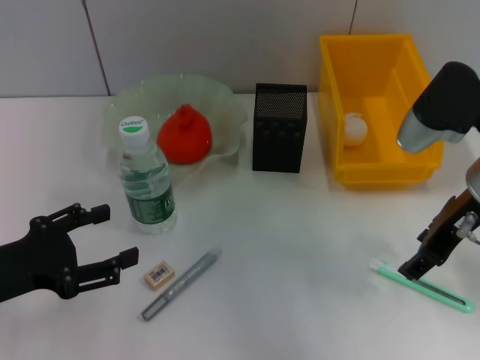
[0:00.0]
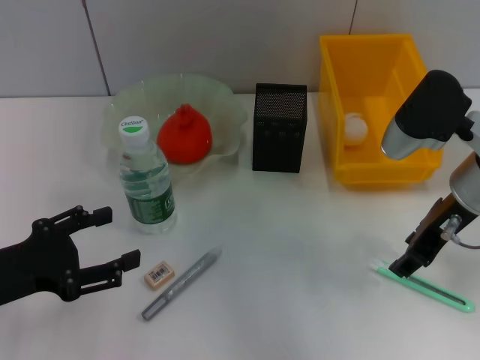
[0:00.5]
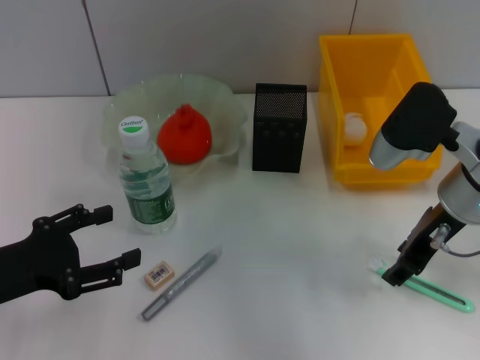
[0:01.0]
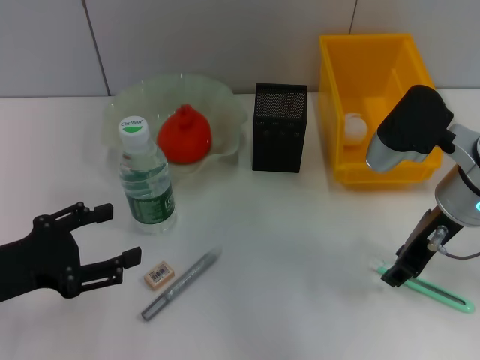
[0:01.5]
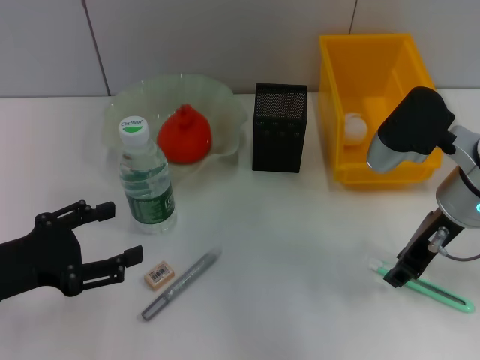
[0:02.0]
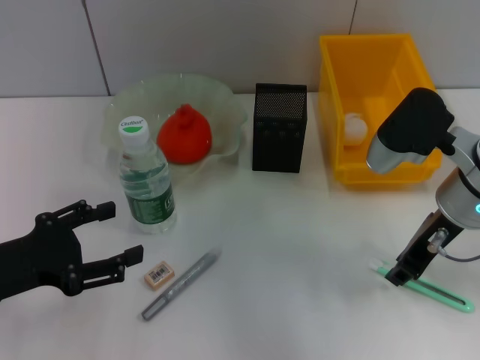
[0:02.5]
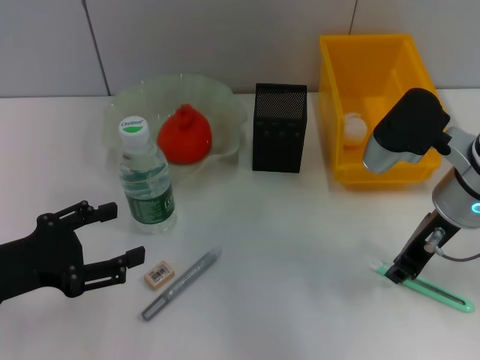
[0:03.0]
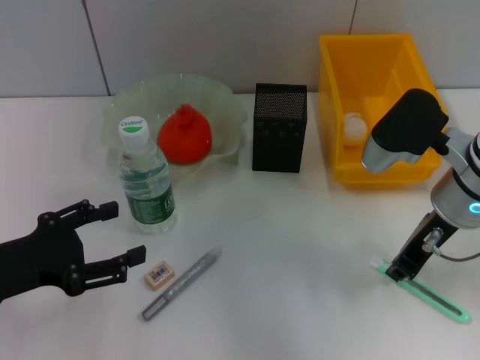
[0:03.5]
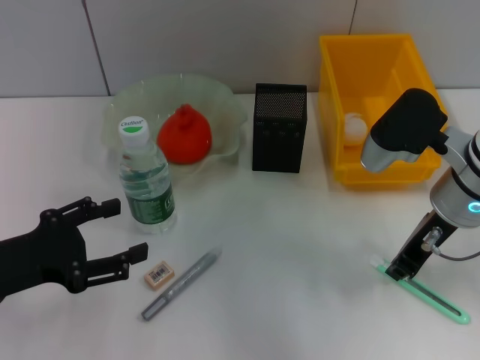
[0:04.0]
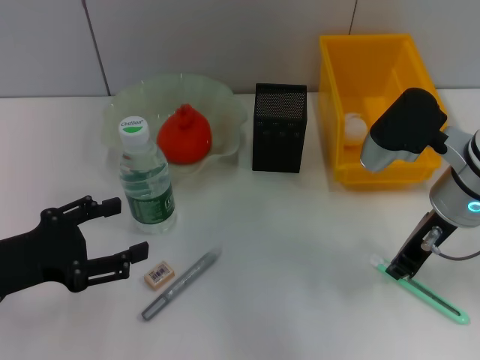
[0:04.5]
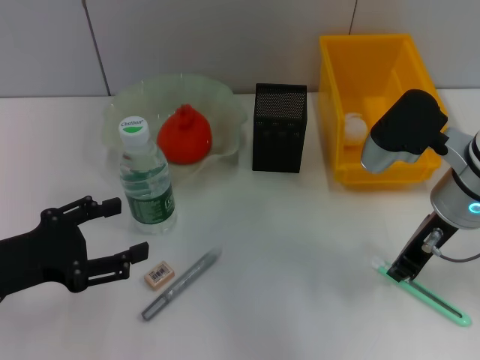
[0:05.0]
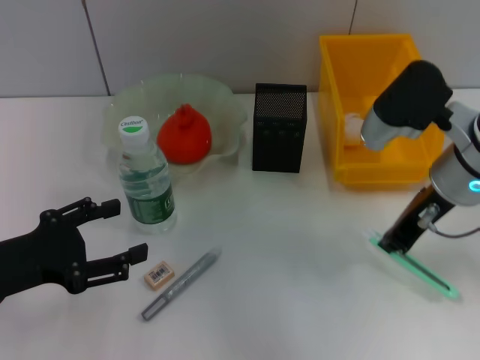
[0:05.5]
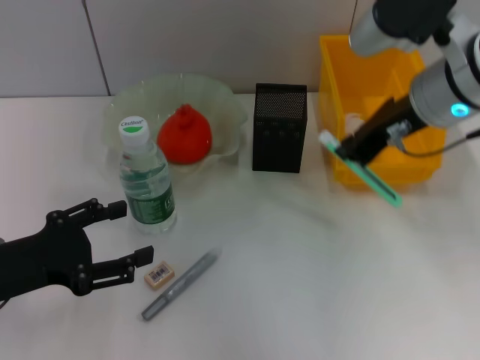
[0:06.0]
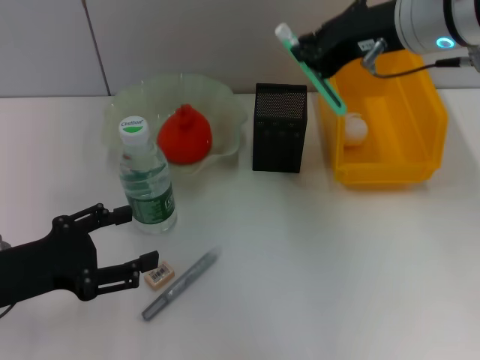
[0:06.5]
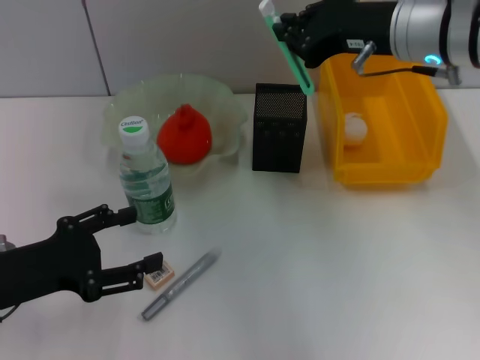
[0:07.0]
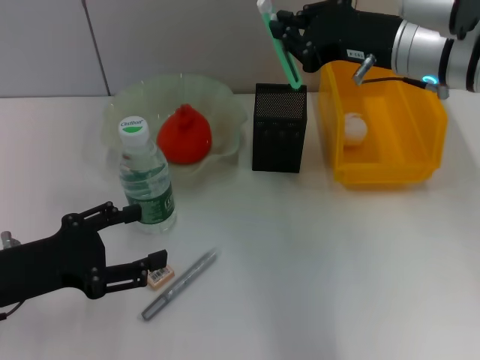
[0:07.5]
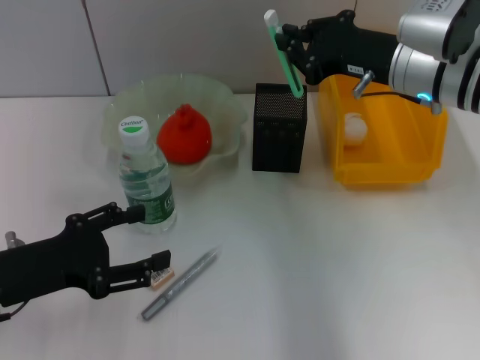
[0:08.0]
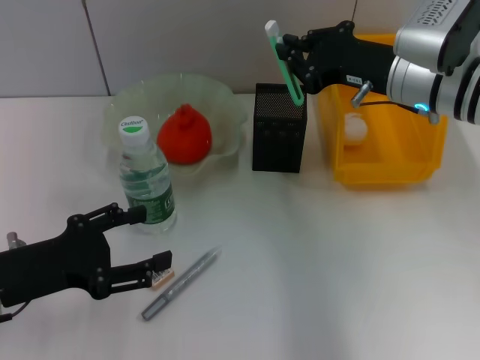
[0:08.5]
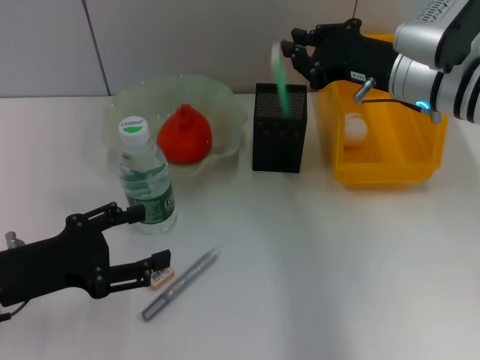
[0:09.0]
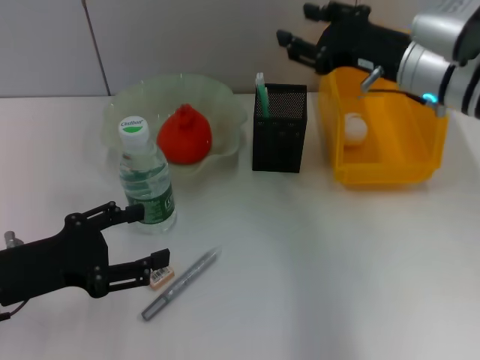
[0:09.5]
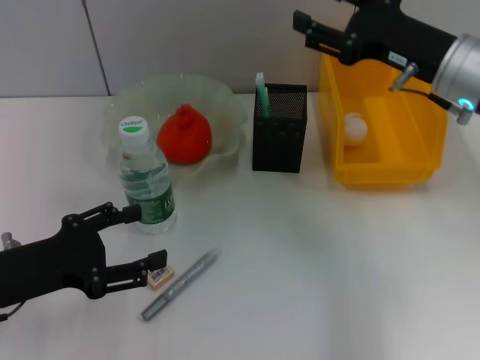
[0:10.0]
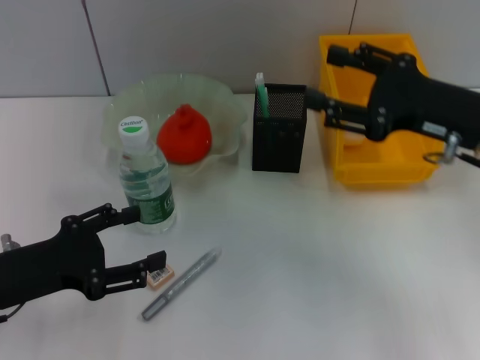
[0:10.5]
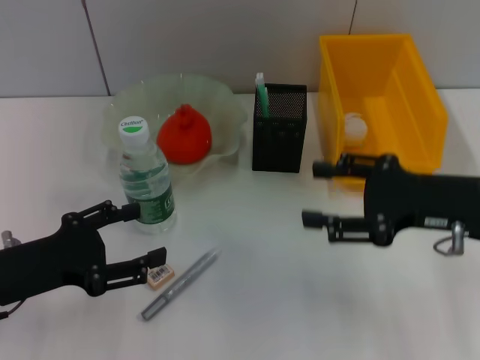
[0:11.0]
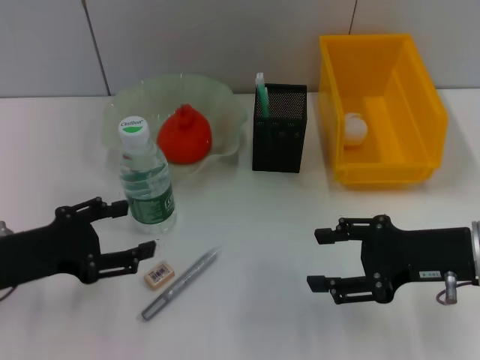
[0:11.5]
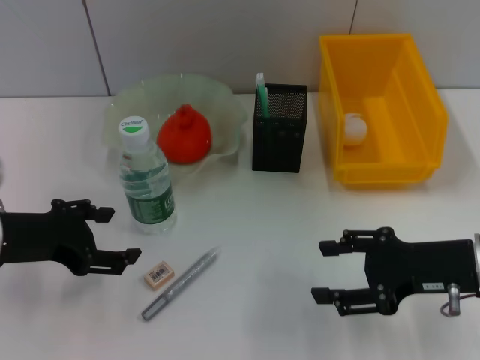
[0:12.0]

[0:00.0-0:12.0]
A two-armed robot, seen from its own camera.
Step, 0:00.0 to 0:03.5: Grab the blue utility knife with the right hand.
Step, 0:04.0 to 0:09.0: Place the blue utility knife into the pen holder with the right hand.
0:00.0 to 0:02.0: There are only small adjustments of the grippers.
0:02.0 to 0:04.0: The right gripper closes its fingers.
0:04.0 to 0:06.0: The right gripper moves upward, approximately 10 cm.
0:06.0 to 0:08.0: The right gripper goes approximately 5 cm downward.
0:08.0 to 0:10.0: The right gripper opens.
0:10.0 to 0:12.0: The left gripper ends up about 5 cm from where it was. The right gripper heads backward and downward, covering some 15 cm.

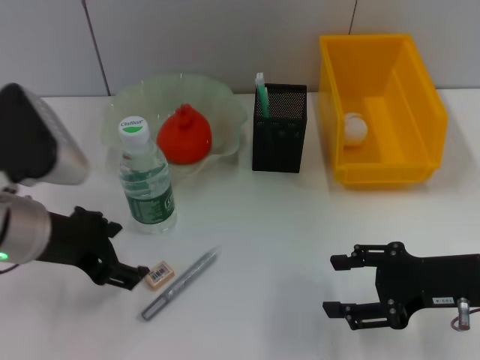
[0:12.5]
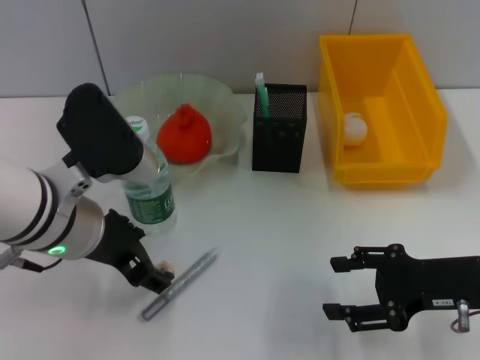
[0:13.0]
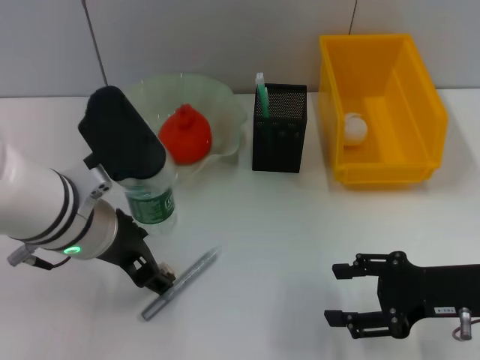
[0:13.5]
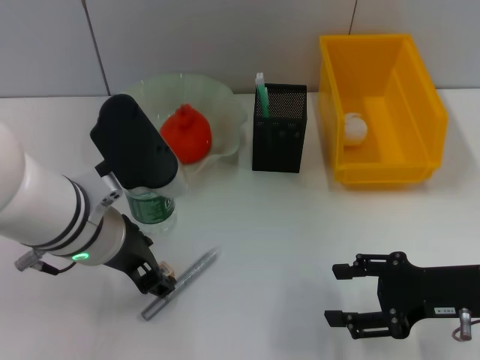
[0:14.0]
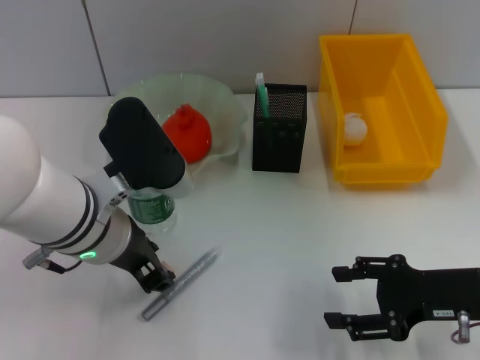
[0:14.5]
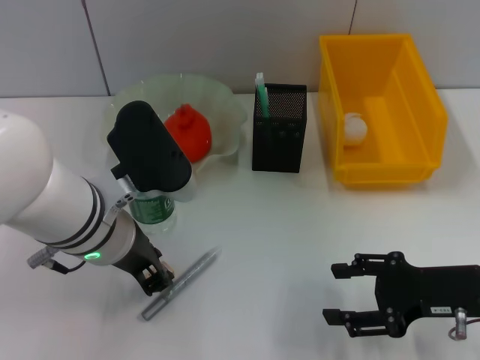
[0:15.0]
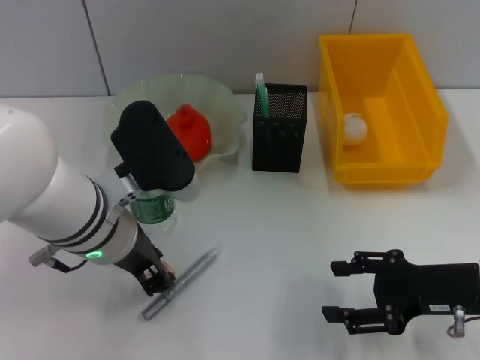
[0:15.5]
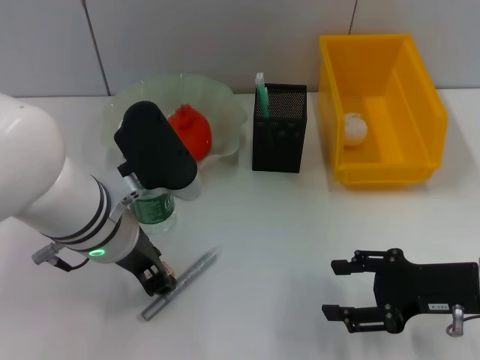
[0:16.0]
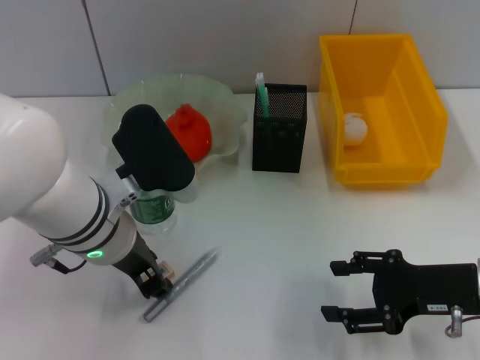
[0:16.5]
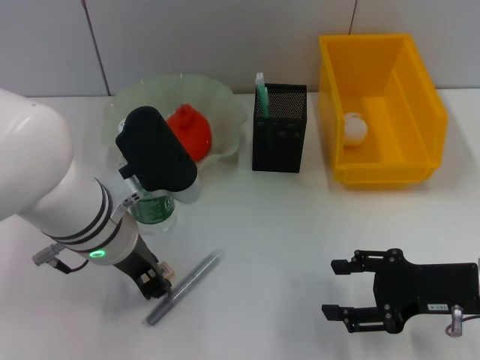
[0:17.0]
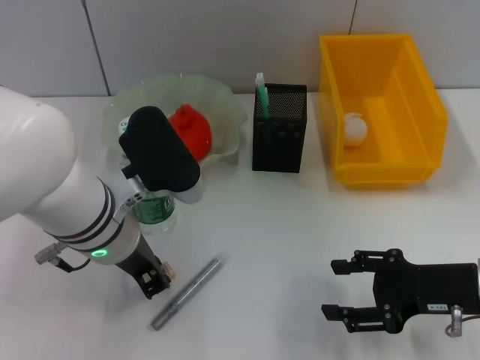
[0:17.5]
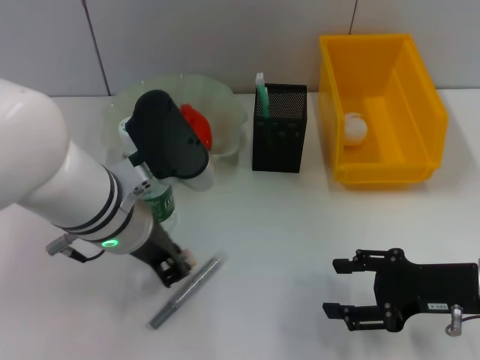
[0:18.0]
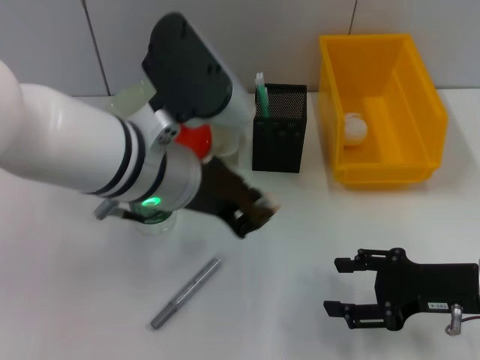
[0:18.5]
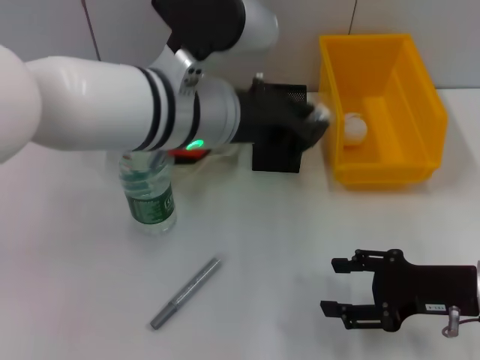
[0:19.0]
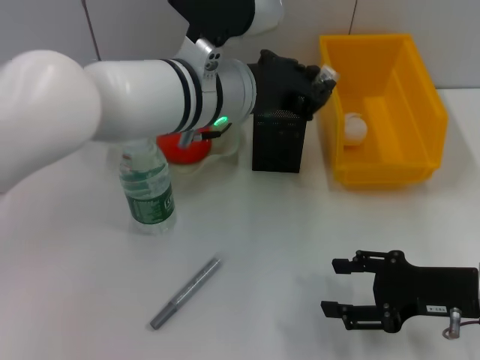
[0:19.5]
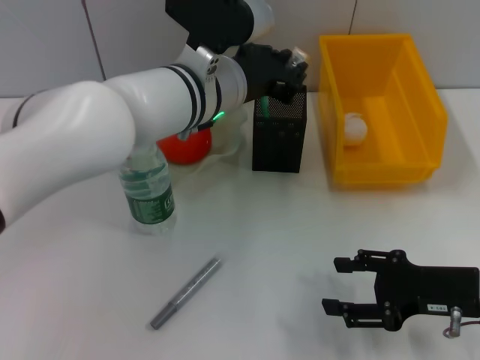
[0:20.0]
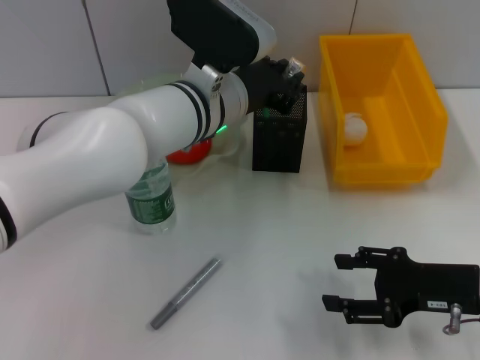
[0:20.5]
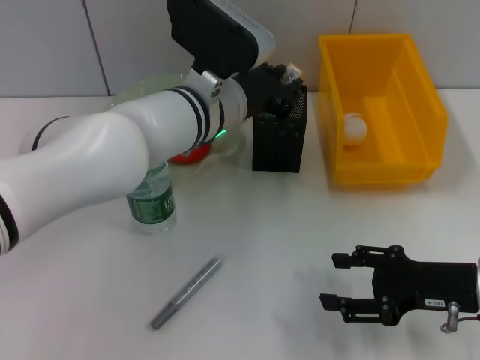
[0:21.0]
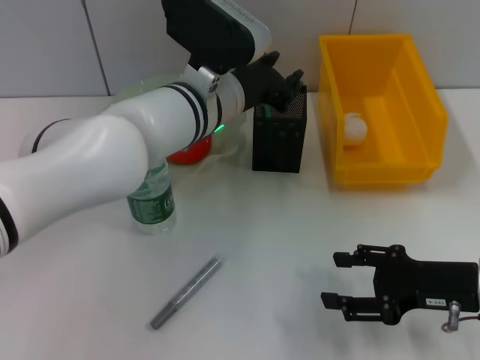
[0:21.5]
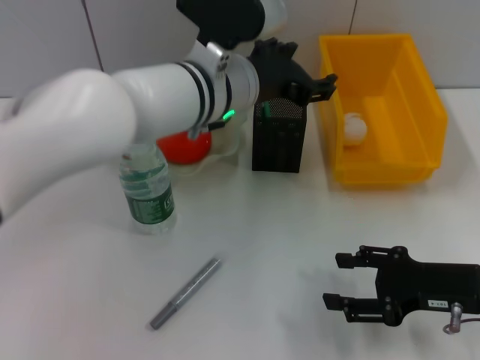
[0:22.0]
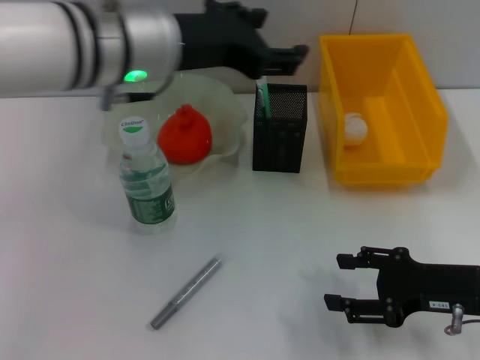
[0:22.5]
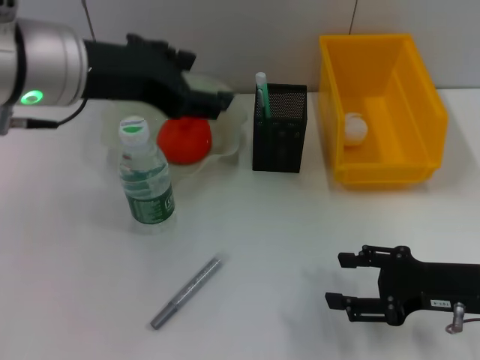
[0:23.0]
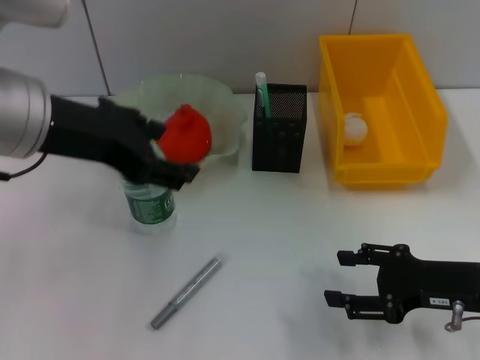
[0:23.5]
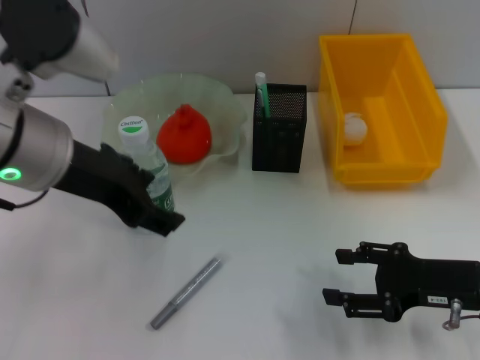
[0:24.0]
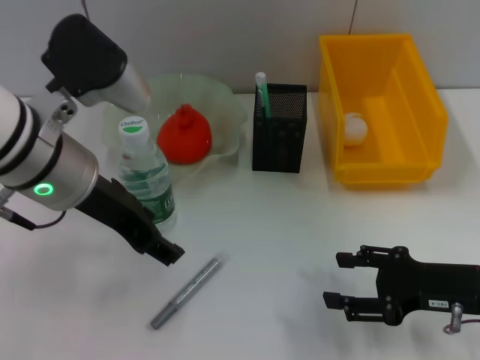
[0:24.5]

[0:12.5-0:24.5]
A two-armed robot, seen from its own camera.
Step, 0:12.5 to 0:17.0: Grab the eraser with the left hand.
Step, 0:17.5 to 0:21.0: Place the eraser into the pen holder with the left hand.
0:12.5 to 0:14.5: The left gripper shifts roughly 10 cm to the right, and closes up.
0:14.5 to 0:16.5: Both grippers stay about where they are.
0:16.5 to 0:18.5: The left gripper travels upward by roughly 5 cm.
0:18.5 to 0:20.5: The left gripper travels forward by roughly 10 cm.
0:20.5 to 0:22.5: The left gripper is displaced upward by approximately 10 cm, and opens up.
0:22.5 to 0:24.5: The left gripper heads to the left and backward, covering about 10 cm.

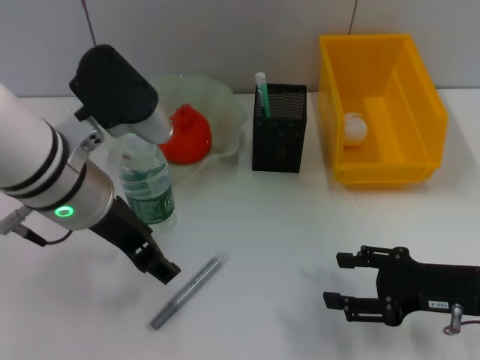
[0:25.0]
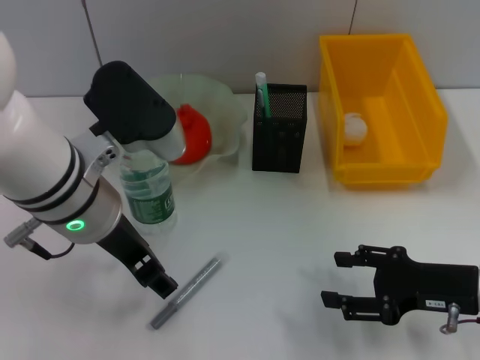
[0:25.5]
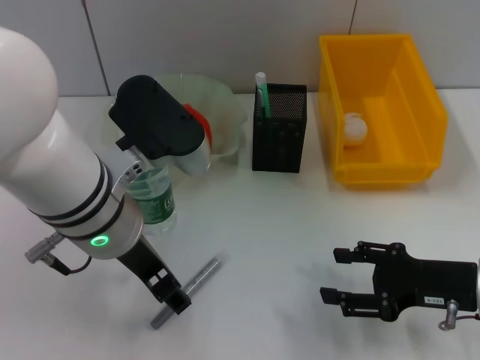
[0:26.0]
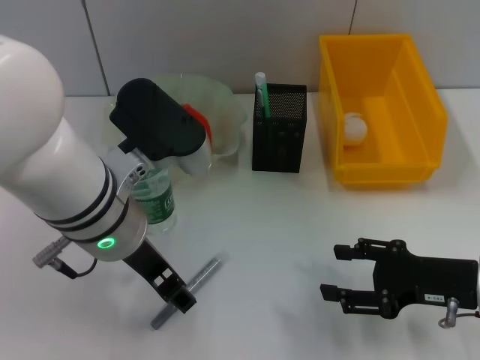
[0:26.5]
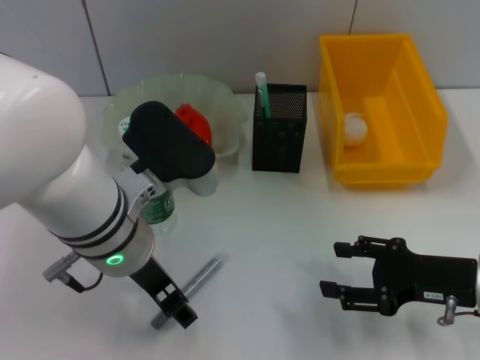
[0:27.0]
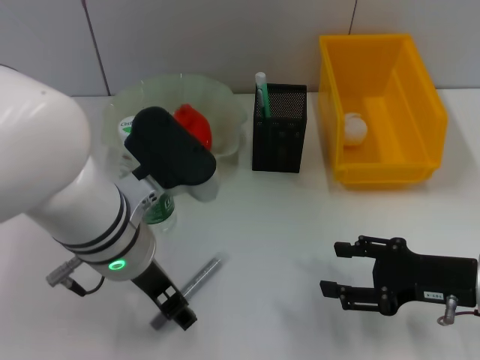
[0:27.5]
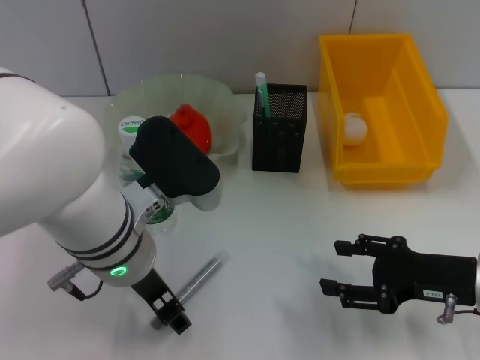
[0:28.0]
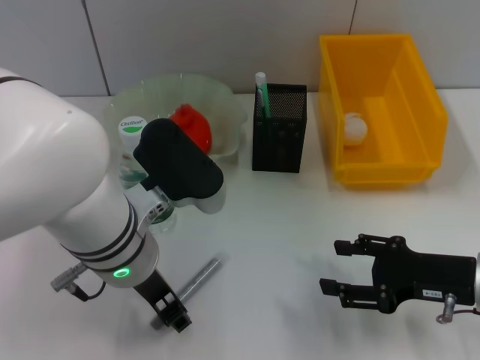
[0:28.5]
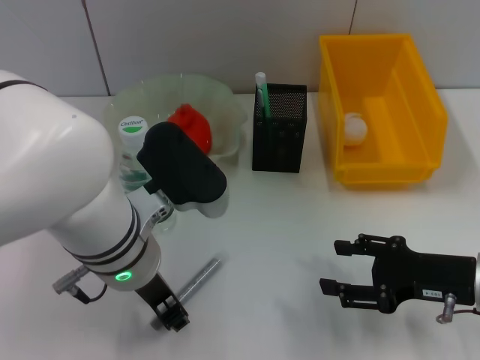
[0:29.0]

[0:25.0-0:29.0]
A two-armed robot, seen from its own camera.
0:25.0 to 0:27.0: The left gripper changes place by roughly 5 cm.
0:27.0 to 0:29.0: The left gripper closes.
